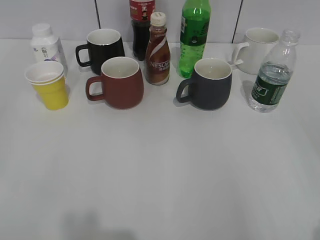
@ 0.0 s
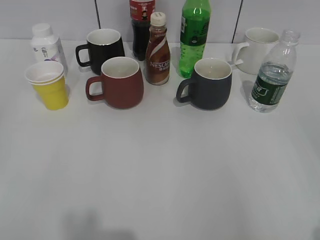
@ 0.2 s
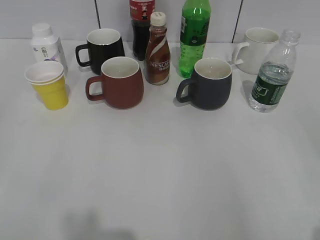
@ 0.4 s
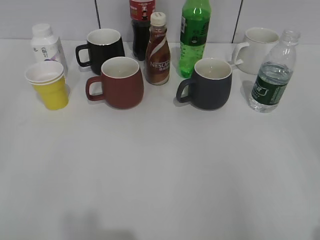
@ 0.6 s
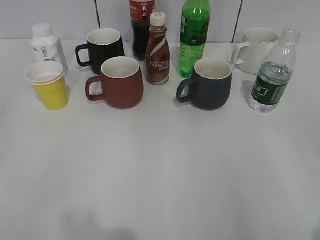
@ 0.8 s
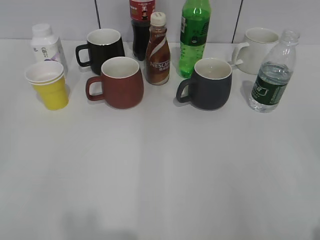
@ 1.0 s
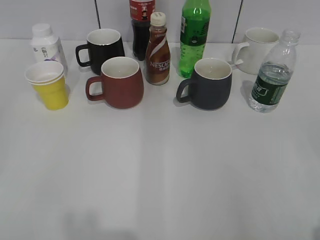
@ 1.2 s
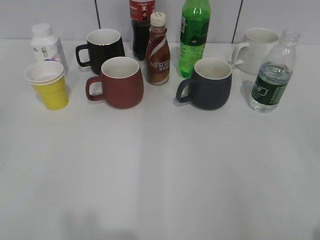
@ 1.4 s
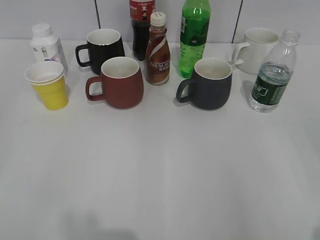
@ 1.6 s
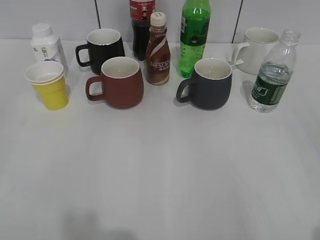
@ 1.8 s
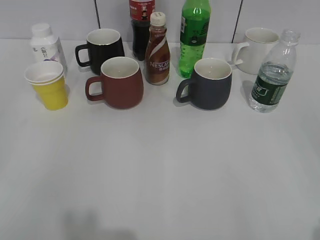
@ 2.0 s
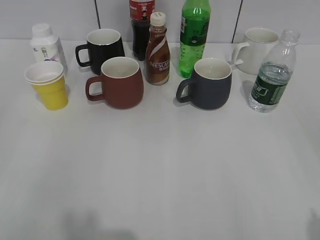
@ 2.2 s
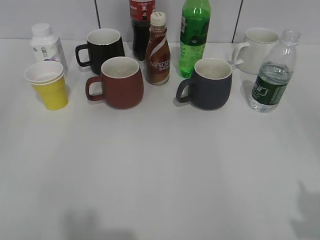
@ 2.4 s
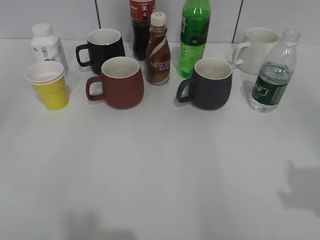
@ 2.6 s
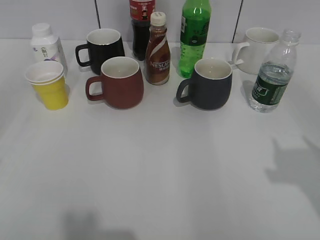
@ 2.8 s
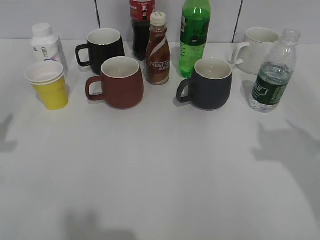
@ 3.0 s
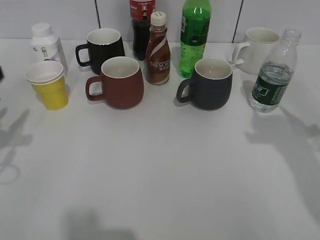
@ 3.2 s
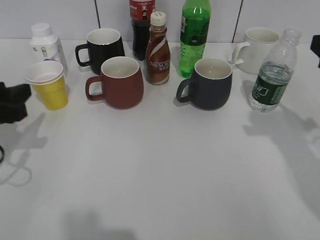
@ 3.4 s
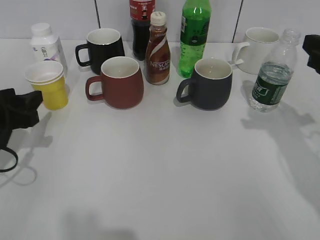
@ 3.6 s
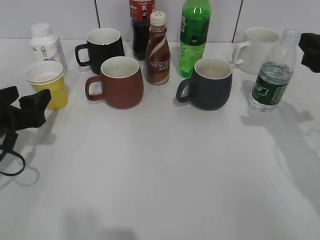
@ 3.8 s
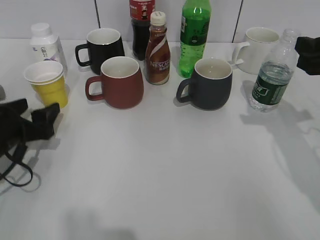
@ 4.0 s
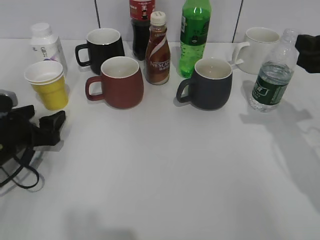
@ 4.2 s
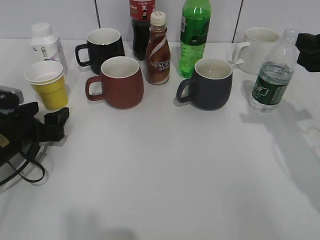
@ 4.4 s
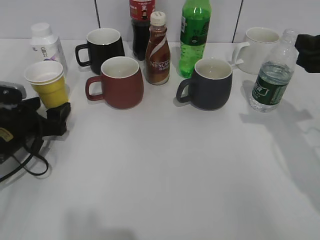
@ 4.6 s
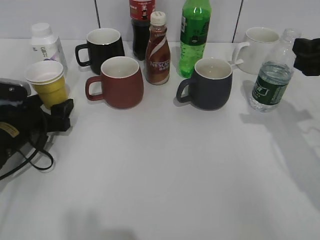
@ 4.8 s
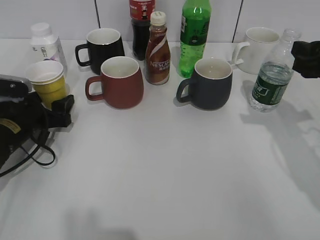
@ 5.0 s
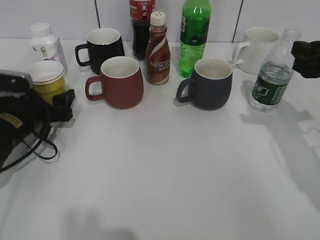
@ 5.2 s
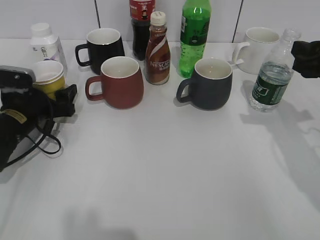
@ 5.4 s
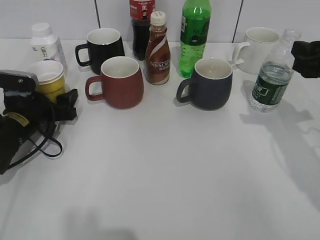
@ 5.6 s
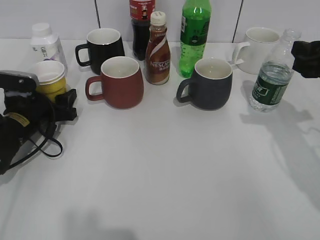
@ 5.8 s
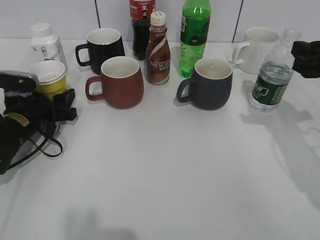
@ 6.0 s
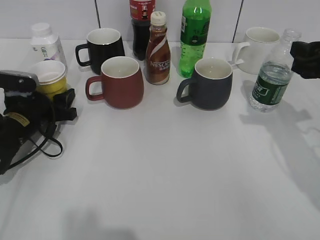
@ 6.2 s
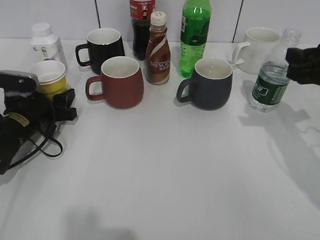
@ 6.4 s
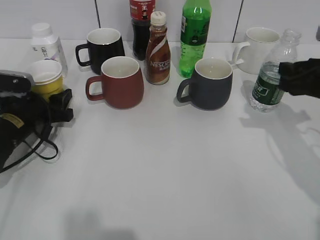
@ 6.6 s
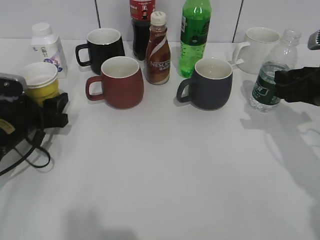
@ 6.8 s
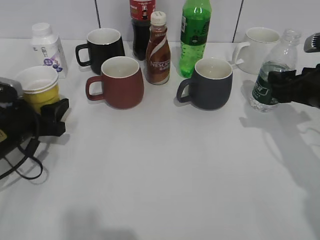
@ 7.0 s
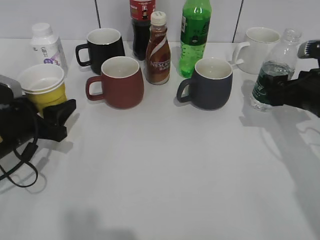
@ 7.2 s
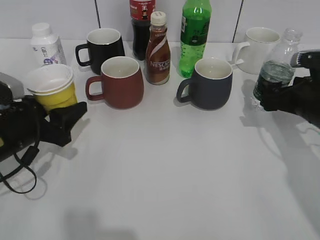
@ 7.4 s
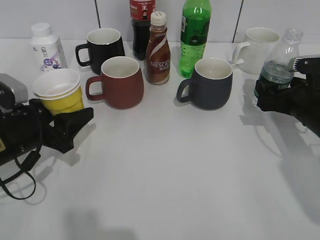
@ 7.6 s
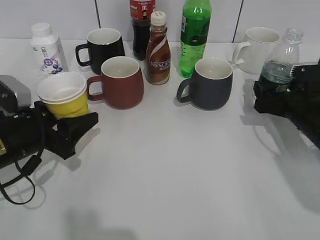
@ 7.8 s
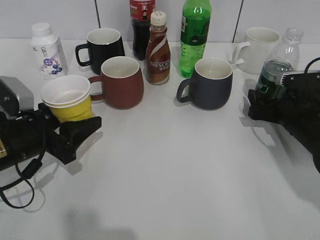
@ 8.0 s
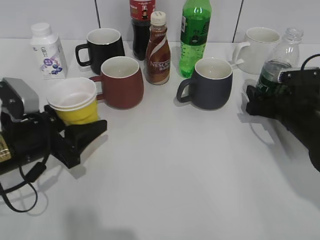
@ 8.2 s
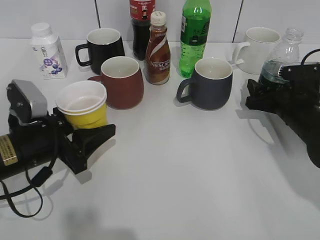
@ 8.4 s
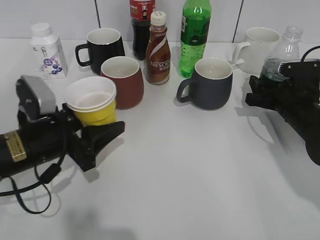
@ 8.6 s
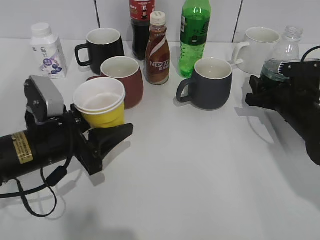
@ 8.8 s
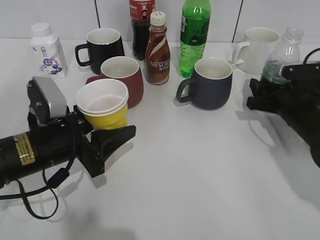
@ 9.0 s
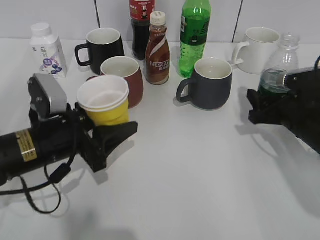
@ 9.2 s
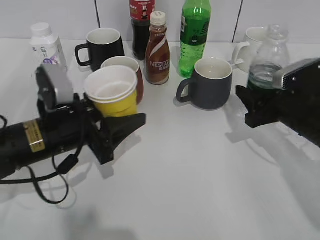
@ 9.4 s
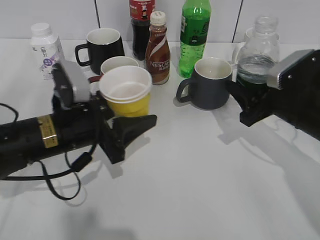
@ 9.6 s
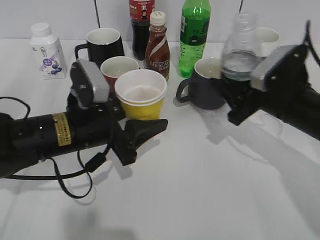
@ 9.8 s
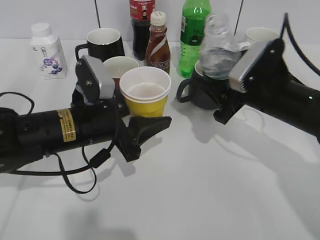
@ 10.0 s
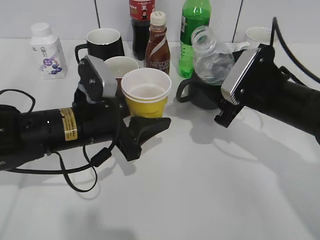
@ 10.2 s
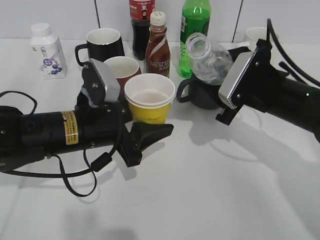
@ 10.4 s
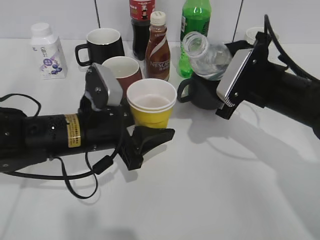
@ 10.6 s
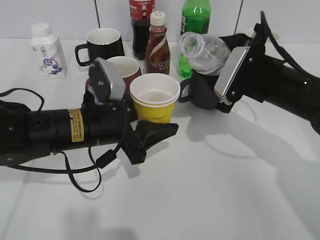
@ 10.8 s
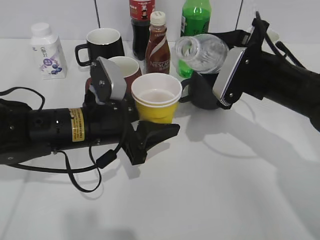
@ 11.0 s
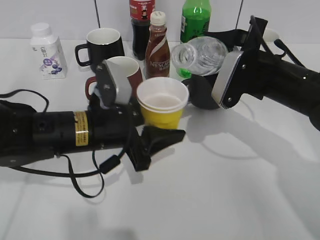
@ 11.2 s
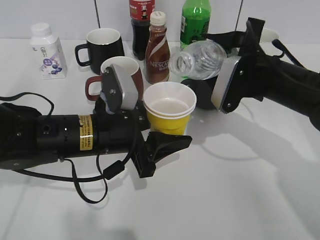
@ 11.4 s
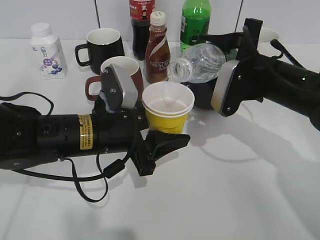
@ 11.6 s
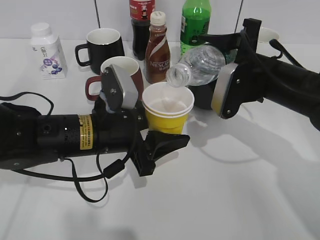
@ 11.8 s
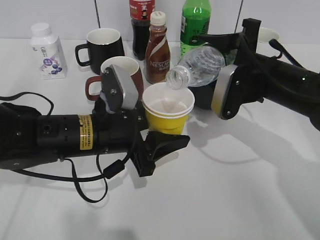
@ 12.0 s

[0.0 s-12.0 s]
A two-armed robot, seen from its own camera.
Step, 2.0 to 6.0 s: Grasp the yellow paper cup with left gripper.
Step, 6.2 to 9.0 s: Grasp the bottle with water with right gripper.
1.6 to 3.0 s: Both grippers travel together forward, roughly 15 cm.
3.0 to 4.4 s: The right gripper moves forward and downward, approximately 15 cm. Meanwhile the left gripper moves downward and forward, some 20 cm, and opens.
4.4 to 6.0 s: The left gripper shifts roughly 5 cm forward, and closes its fingers.
6.0 to 7.6 s: The left gripper is displaced backward by some 10 cm. Meanwhile the right gripper is displaced downward by about 10 cm, and opens.
7.6 to 9.0 s: The left gripper travels to the right by roughly 5 cm; the right gripper closes.
9.0 to 10.4 s: The right gripper goes some 10 cm to the left and upward; the left gripper is displaced to the right by approximately 5 cm.

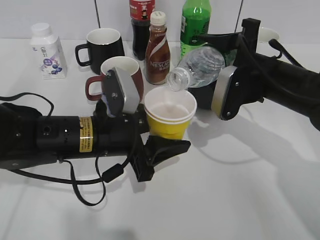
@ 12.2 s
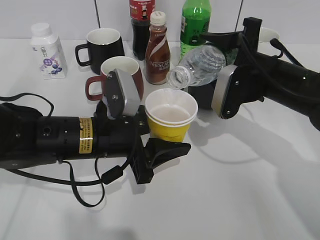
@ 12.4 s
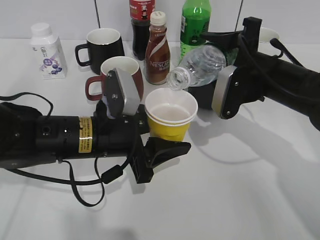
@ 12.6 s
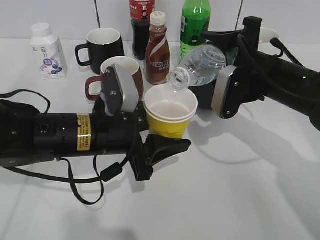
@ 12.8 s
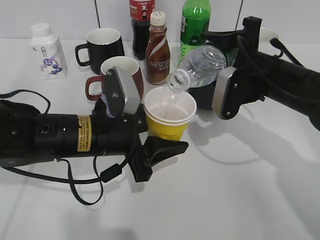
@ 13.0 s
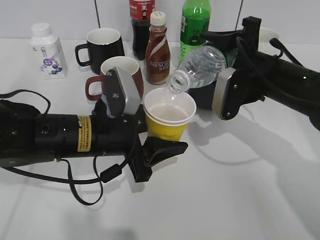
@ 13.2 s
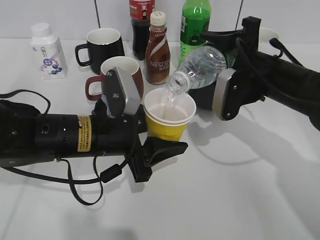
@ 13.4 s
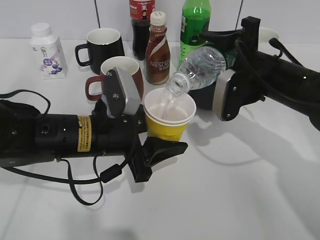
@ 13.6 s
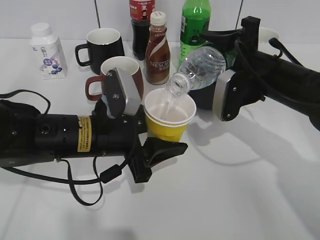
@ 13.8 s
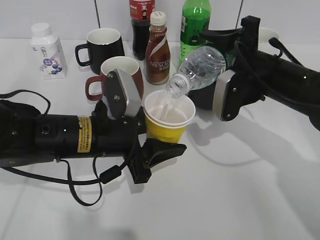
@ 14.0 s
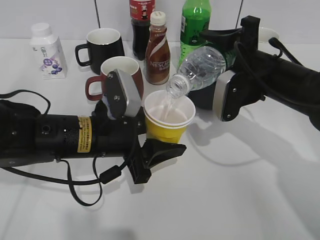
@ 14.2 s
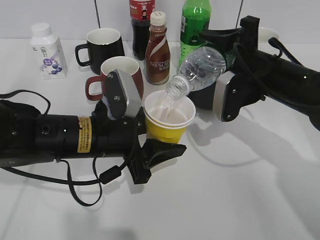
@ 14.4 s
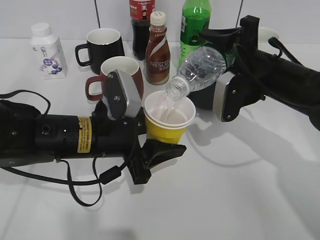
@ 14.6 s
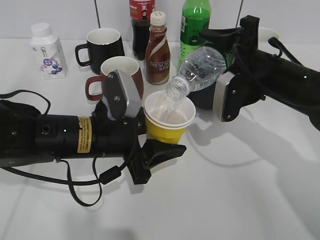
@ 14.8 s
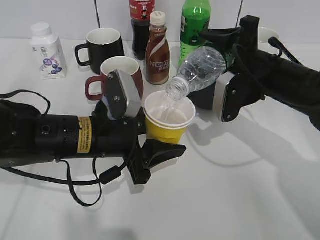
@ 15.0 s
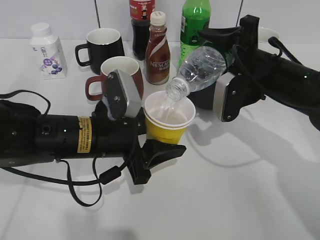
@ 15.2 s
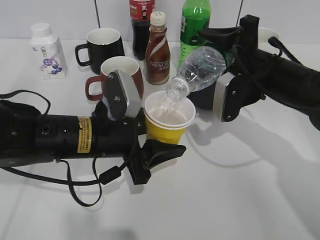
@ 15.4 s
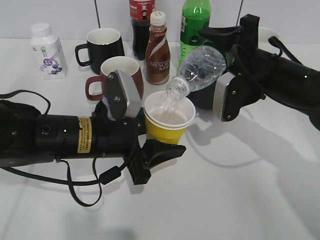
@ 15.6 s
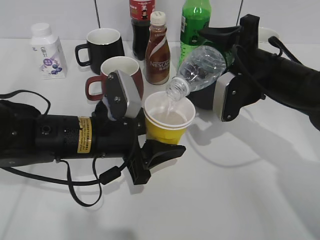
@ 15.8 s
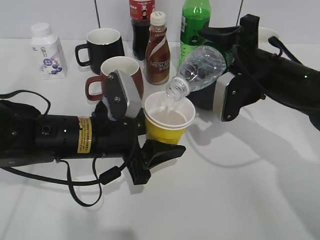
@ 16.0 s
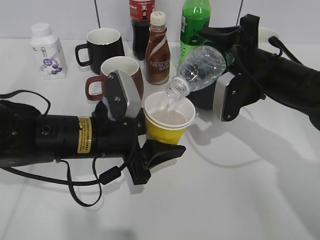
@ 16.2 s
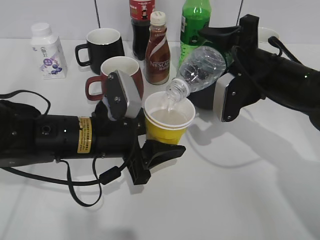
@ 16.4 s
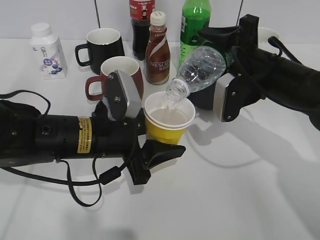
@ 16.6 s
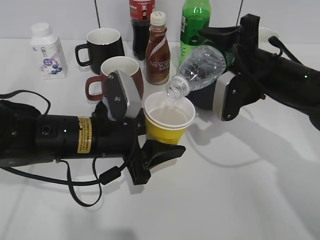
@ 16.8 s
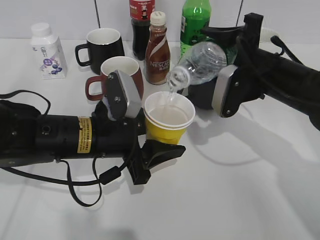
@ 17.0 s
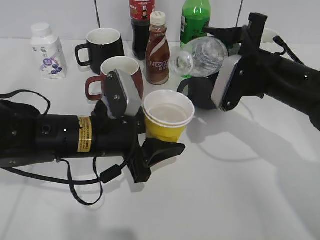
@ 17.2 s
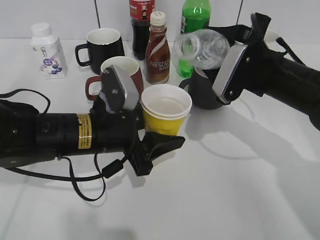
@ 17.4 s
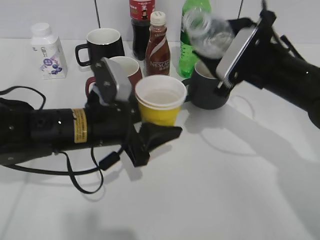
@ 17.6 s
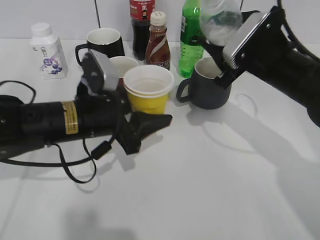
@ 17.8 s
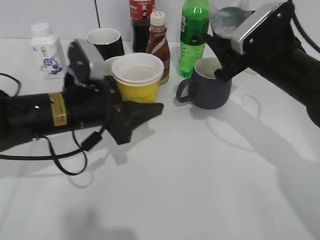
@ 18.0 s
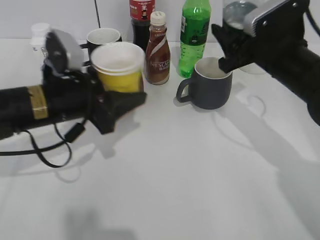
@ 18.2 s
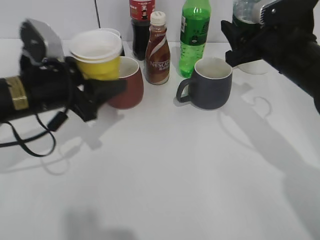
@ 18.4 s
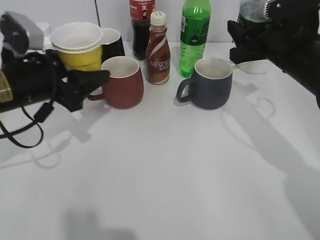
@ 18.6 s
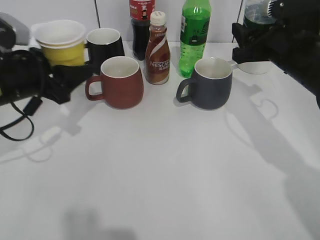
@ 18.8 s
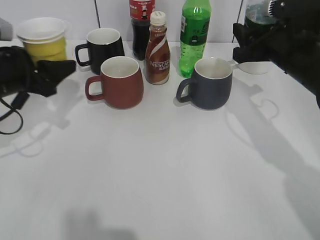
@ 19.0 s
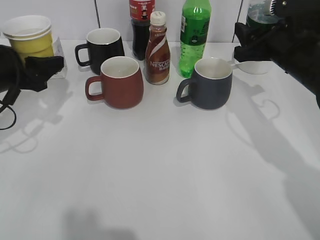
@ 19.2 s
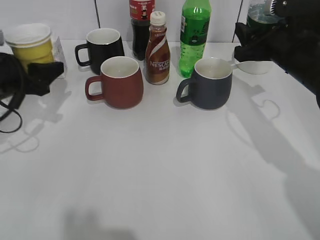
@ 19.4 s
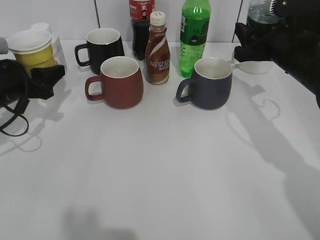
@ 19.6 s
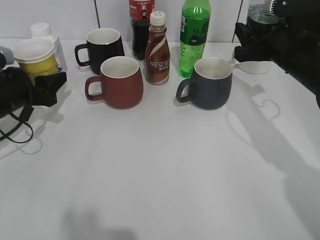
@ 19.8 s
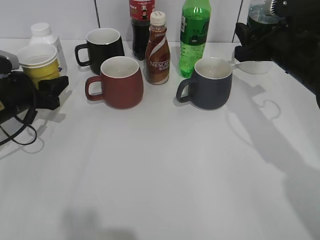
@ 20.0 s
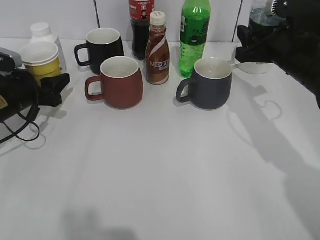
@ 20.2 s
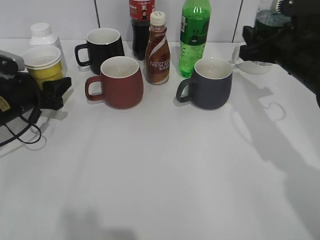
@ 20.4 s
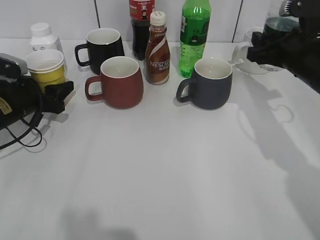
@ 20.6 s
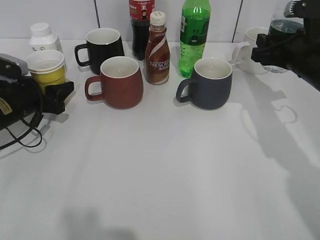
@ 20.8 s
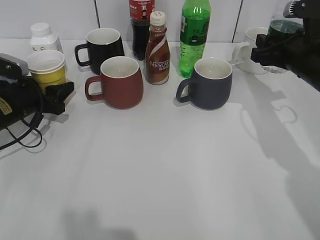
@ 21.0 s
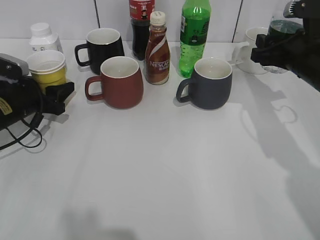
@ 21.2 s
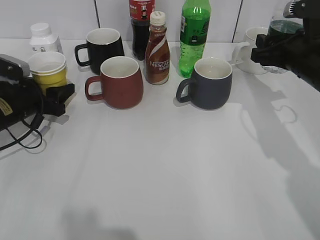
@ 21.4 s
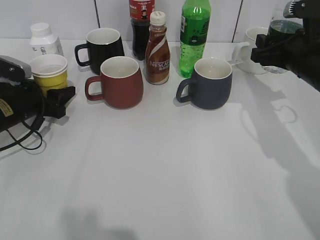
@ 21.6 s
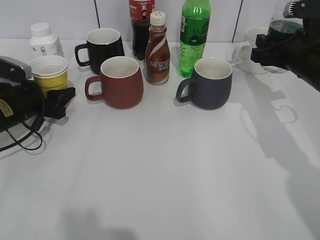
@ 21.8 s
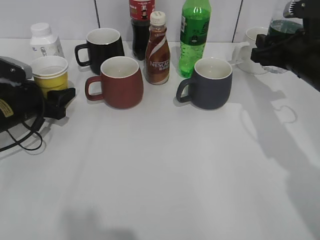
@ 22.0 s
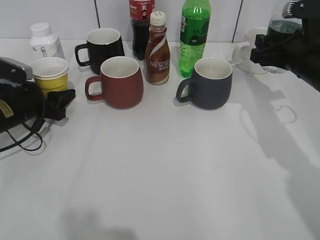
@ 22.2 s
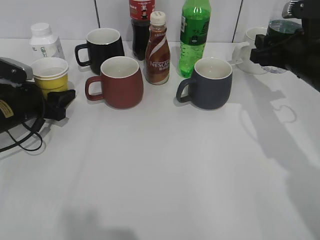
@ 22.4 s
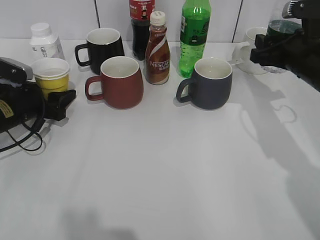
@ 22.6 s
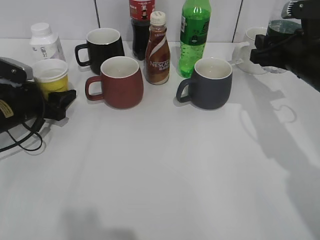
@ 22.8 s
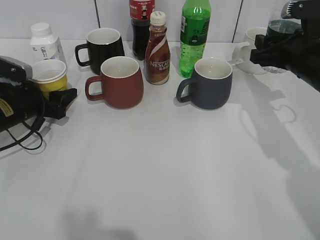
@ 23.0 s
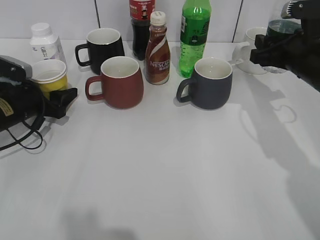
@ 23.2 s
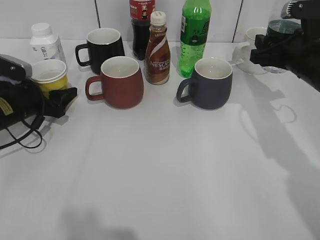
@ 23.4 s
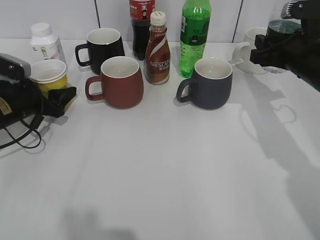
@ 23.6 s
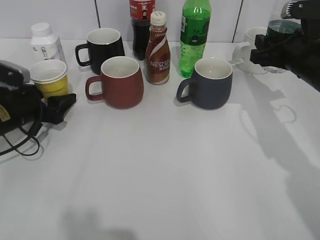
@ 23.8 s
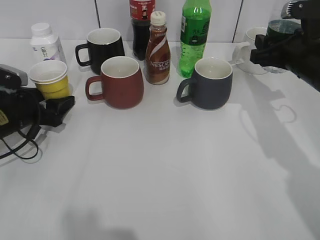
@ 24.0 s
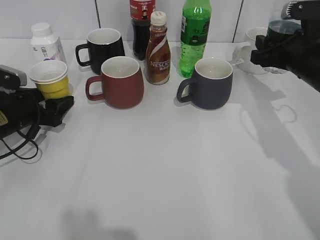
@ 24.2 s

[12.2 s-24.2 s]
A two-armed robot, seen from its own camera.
Step, 12.2 to 17.8 s: Pour the water from bottle to cup with right gripper.
Step, 18.0 to 23.2 s: Place the yellow paper cup on the table with left gripper.
12.2 to 15.2 s: There are only small adjustments of the grippers.
15.2 to 16.6 s: Neither gripper changes place.
16.6 to 18.2 s: The left gripper heads to the left, covering approximately 5 cm.
18.2 to 19.8 s: The left gripper goes approximately 15 cm to the left and forward.
19.8 to 21.2 s: The grippers make only small movements.
21.2 to 22.6 s: Both grippers stay about where they are.
22.6 to 24.2 s: The left gripper opens its fingers.
